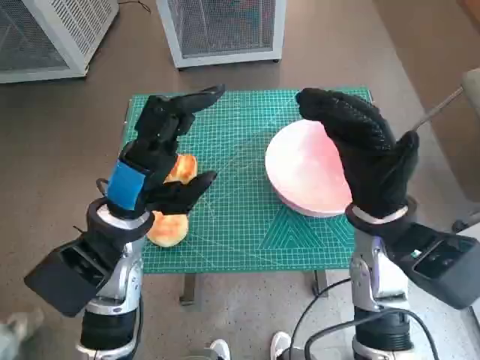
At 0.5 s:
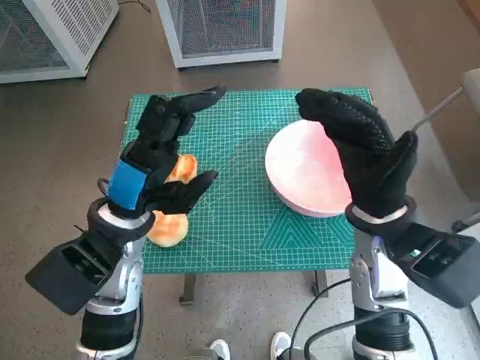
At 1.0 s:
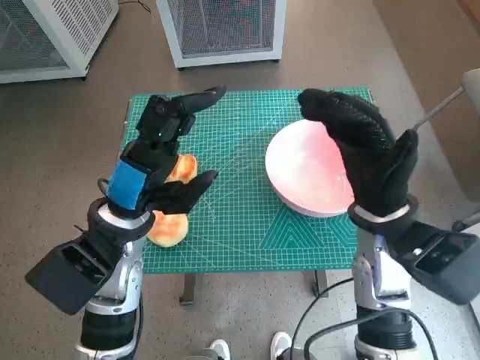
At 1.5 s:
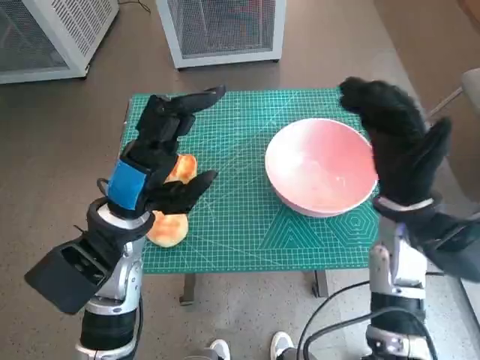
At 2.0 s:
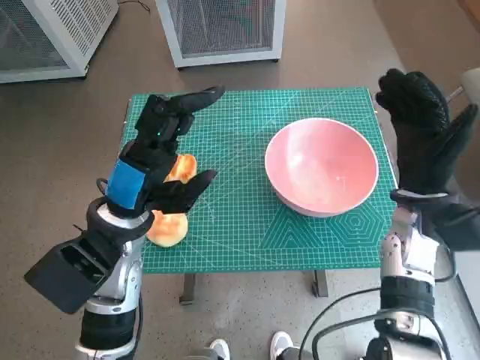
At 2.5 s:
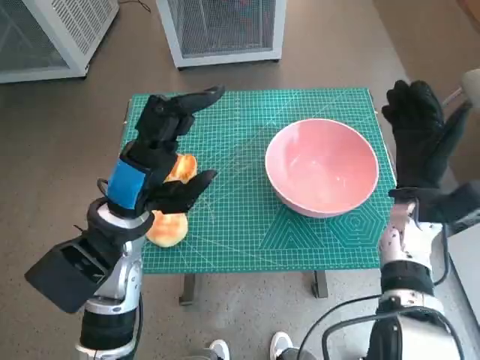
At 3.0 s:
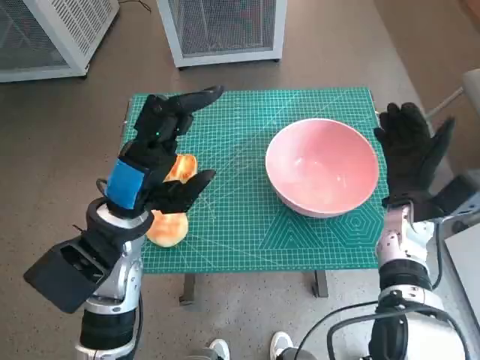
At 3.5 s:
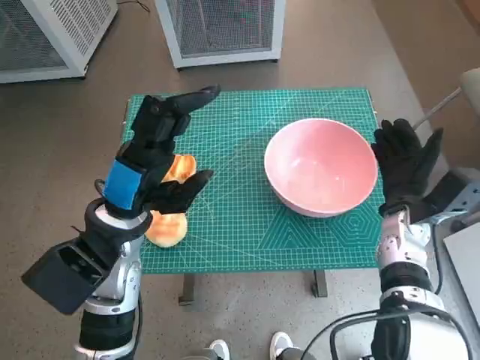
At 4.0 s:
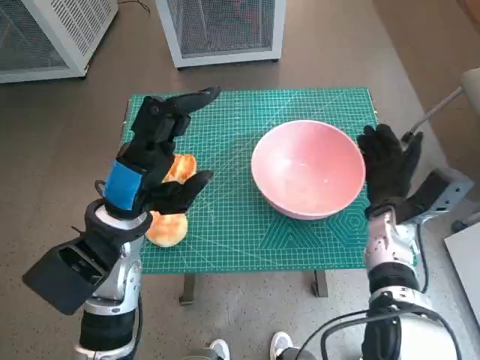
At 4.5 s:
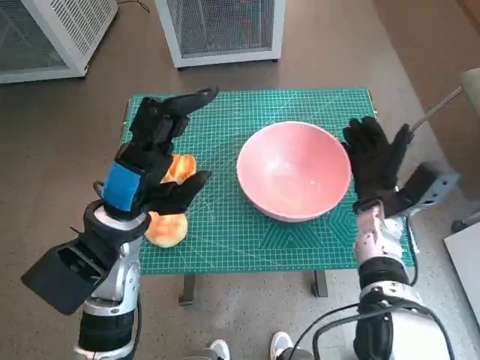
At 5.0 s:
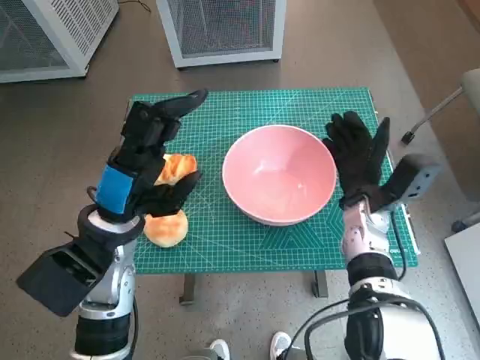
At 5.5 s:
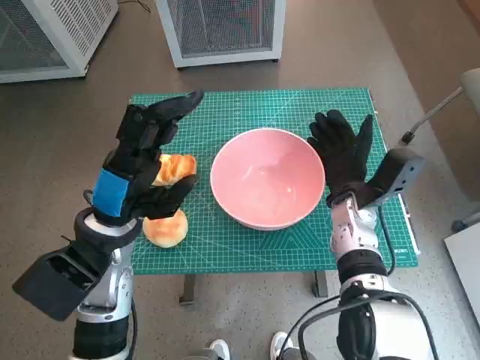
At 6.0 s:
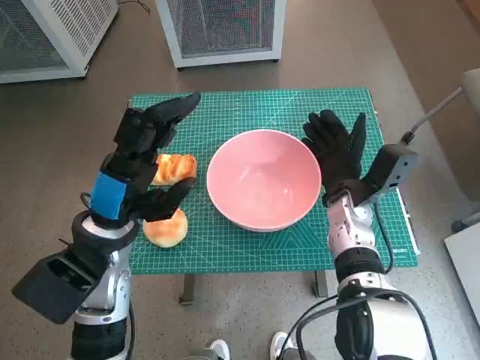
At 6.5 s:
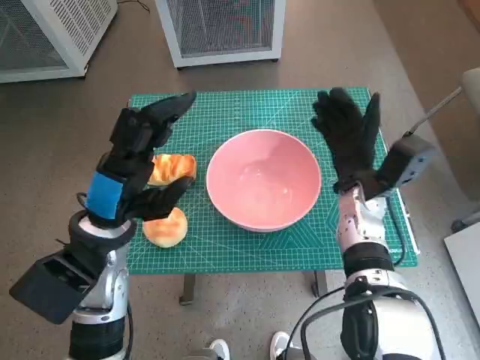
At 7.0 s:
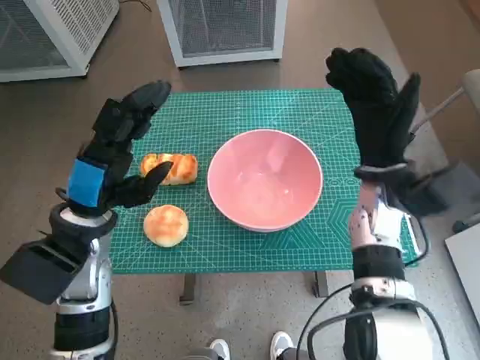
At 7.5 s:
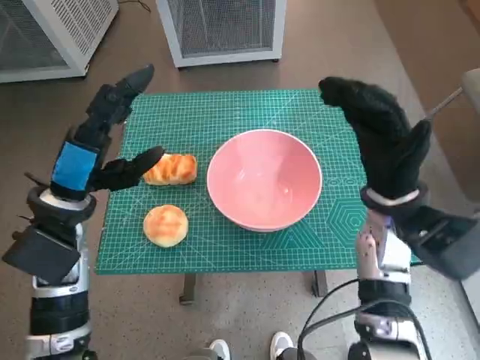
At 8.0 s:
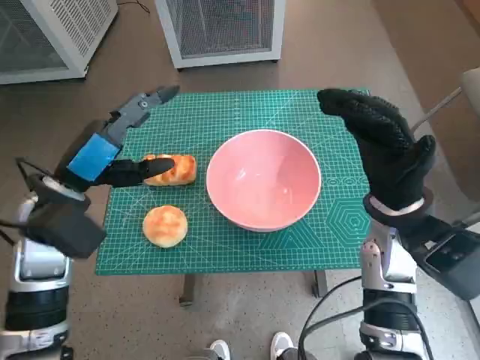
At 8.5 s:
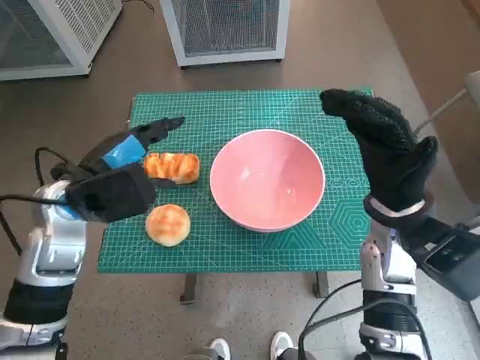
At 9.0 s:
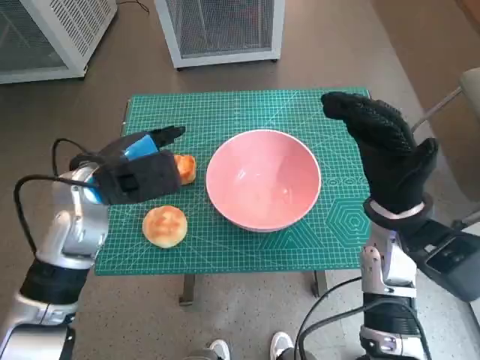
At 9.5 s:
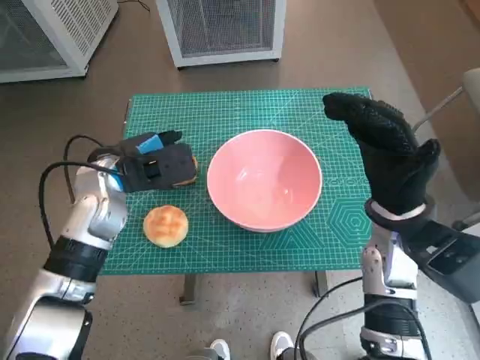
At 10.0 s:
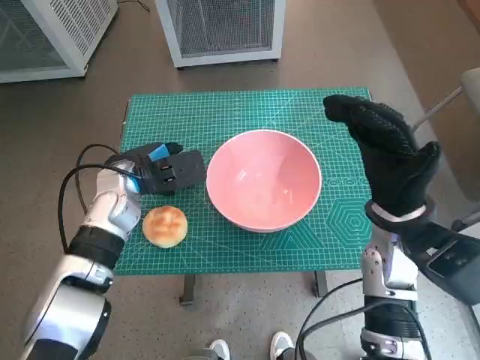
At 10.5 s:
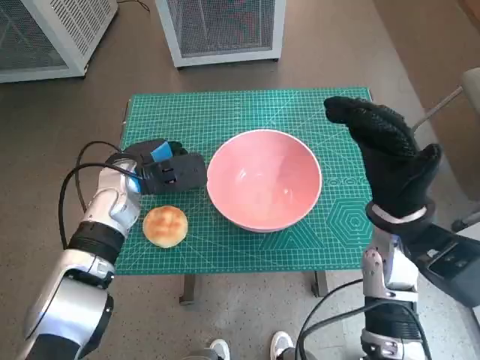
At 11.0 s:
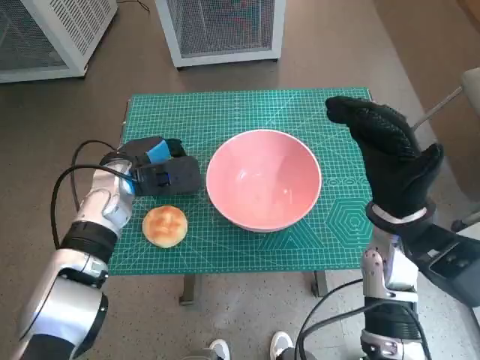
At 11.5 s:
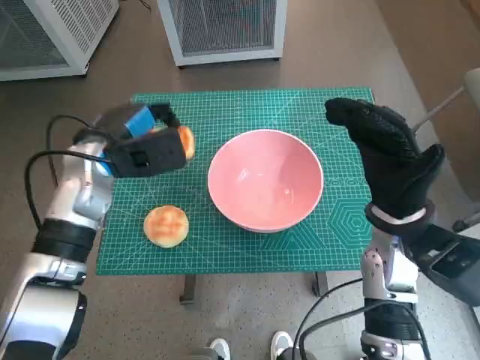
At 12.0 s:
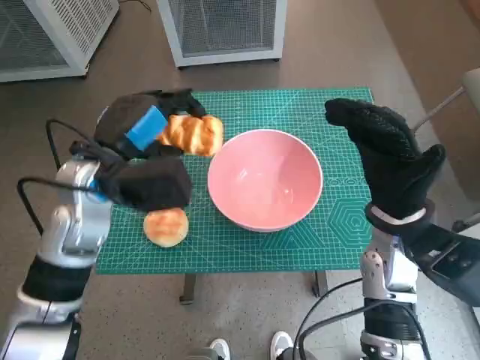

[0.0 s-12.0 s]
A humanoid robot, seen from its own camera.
Task of the whole recording: Push the bowl into the center of the table and put the bread into the bowl.
Step, 0.0 to 6.0 s: Move the pink bowl to the center of table with right hand.
Step, 6.5 to 10.5 s: Grasp the long bread with left hand.
2.0 to 4.0 s: The right hand shifts approximately 10 cm downward.
4.0 to 6.0 s: The right hand heads to the left, covering roughly 5 cm.
6.0 to 8.0 s: The left hand moves to the left, approximately 5 cm. Meanwhile the right hand shifts approximately 10 cm upward and backward.
8.0 to 10.0 s: The left hand moves forward and downward, roughly 10 cm.
10.0 to 12.0 s: The left hand moves upward, approximately 5 cm.

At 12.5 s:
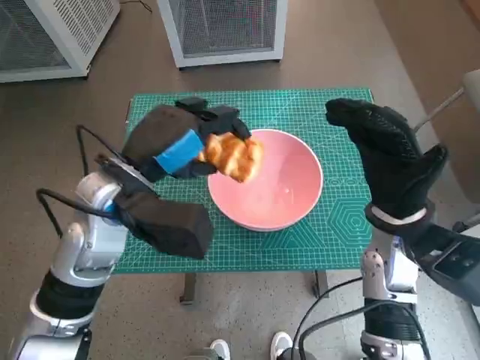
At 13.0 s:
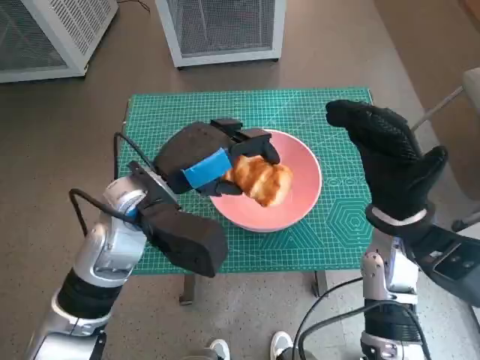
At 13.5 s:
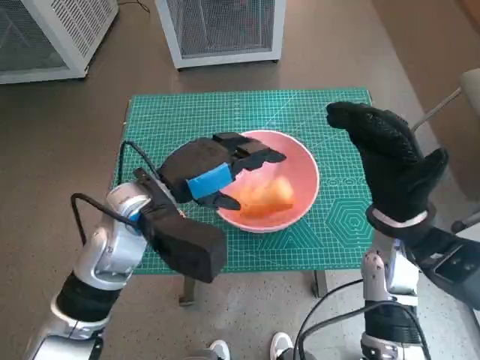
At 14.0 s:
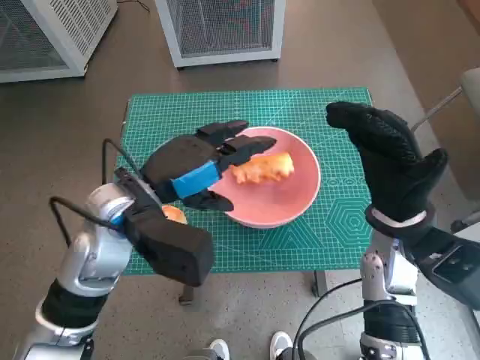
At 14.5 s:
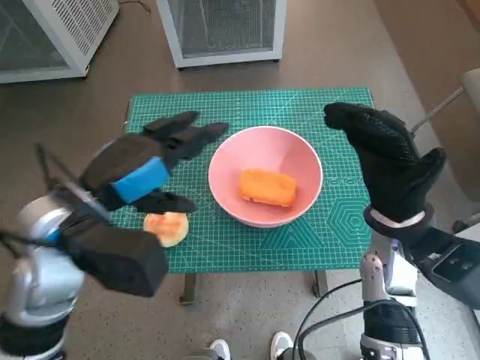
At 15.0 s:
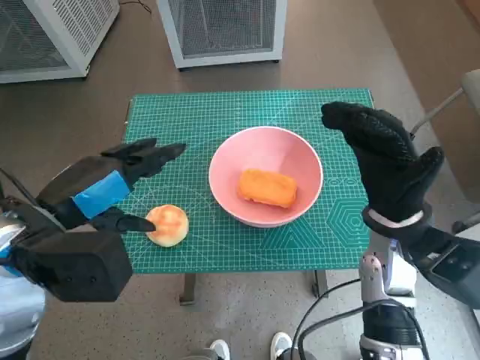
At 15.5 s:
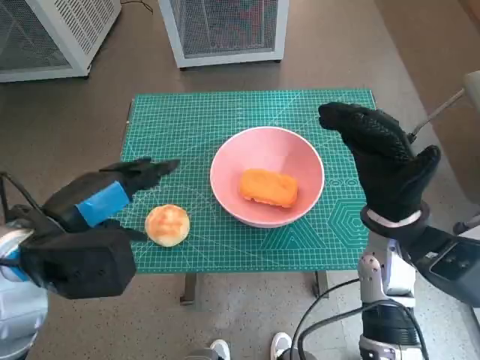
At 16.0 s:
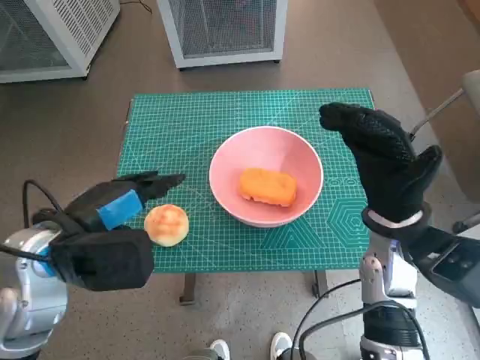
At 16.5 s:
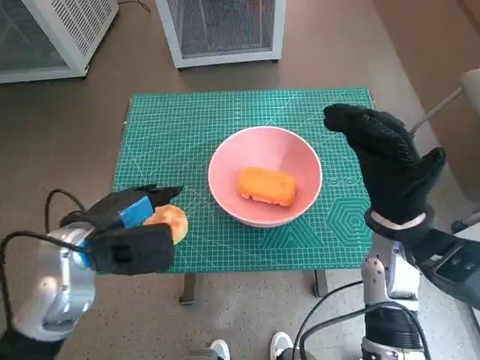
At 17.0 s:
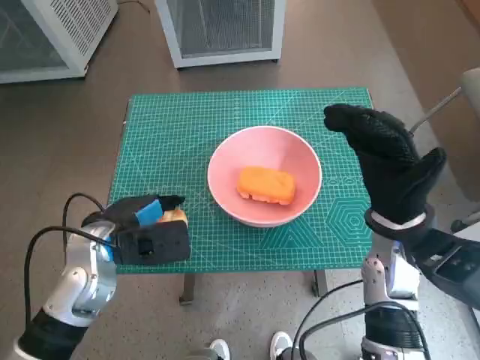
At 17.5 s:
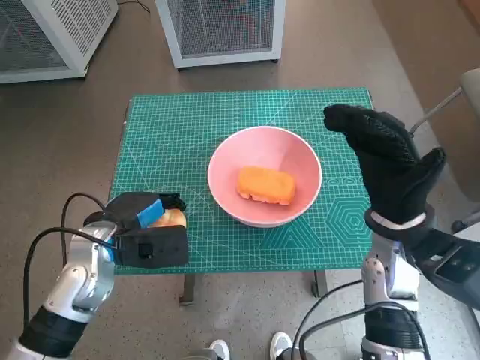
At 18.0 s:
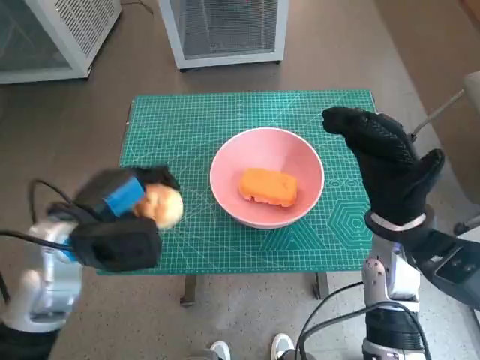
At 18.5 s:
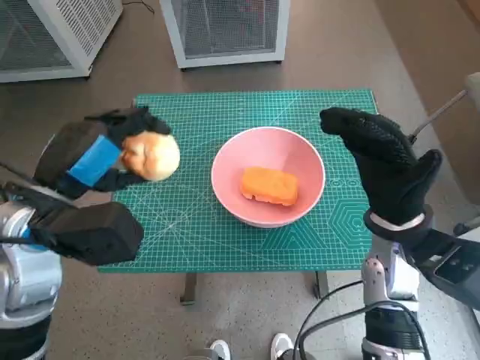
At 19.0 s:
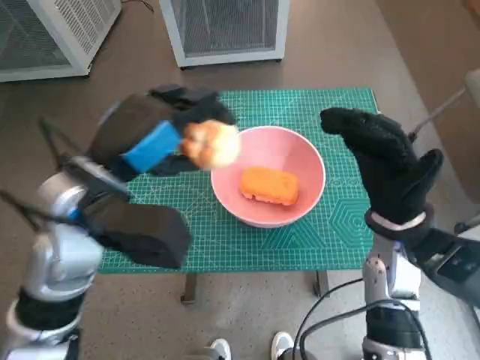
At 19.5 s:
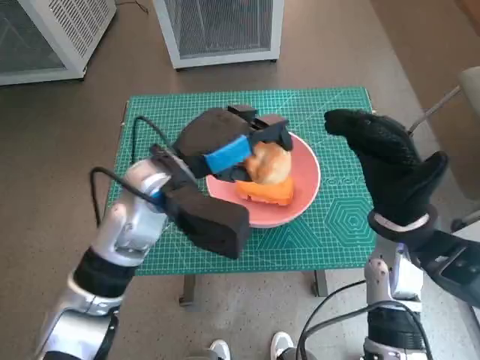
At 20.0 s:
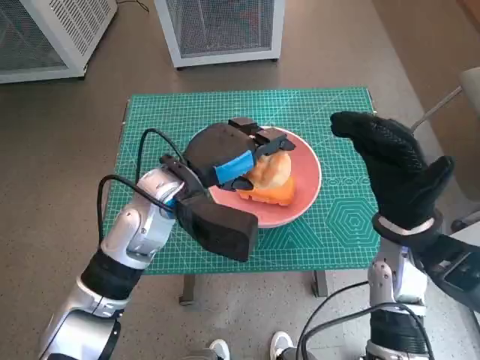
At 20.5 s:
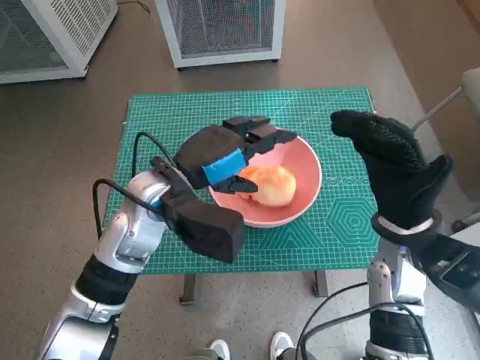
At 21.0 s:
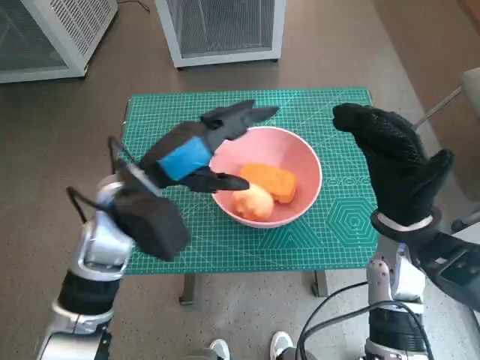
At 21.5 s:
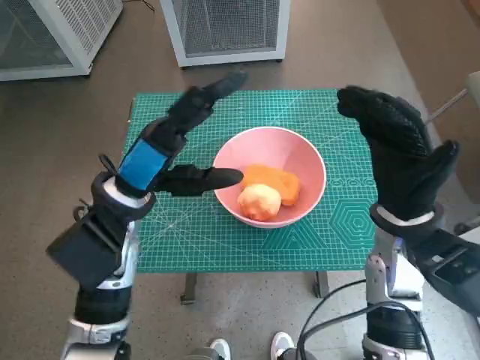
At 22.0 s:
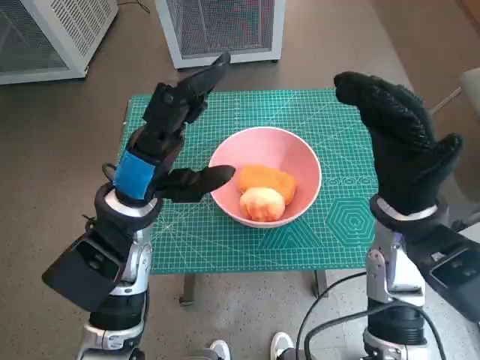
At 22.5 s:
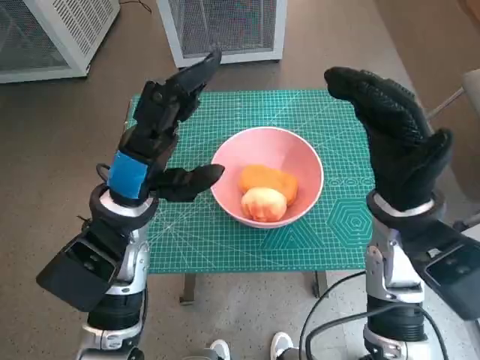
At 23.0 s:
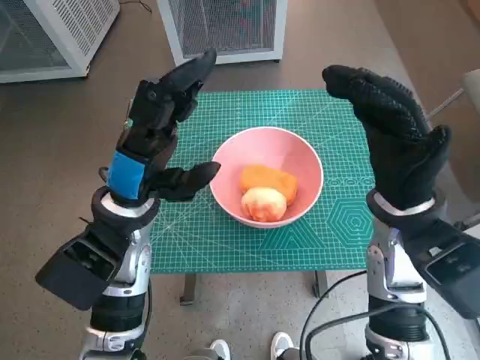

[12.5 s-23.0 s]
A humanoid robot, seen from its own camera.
Task of the whole recording: Push the bowl into the center of the table and put the bread into the bowl.
Step, 13.5 to 17.0 s: Grasp the round bread with left hand.
Step, 17.5 to 20.5 s: Place the round bread in pink bowl with left hand.
14.5 to 16.5 s: The left hand is displaced downward by approximately 5 cm.
16.5 to 19.0 s: The left hand travels upward by approximately 10 cm.
